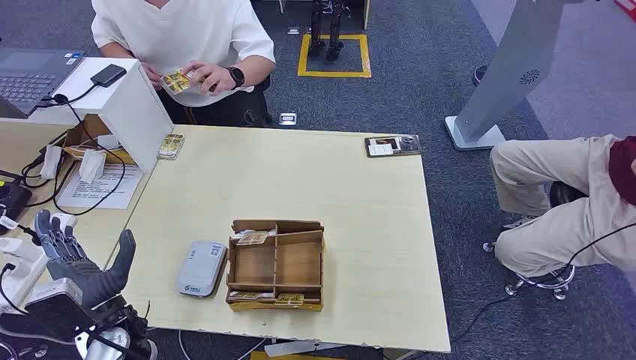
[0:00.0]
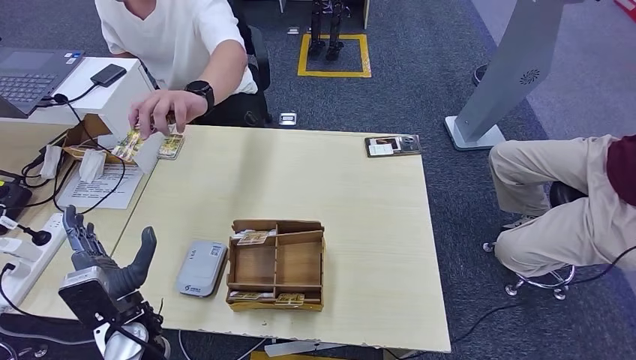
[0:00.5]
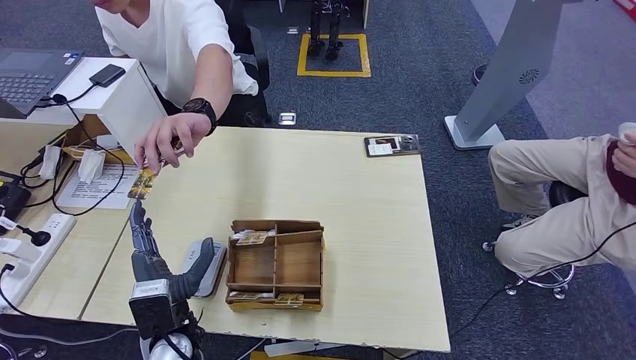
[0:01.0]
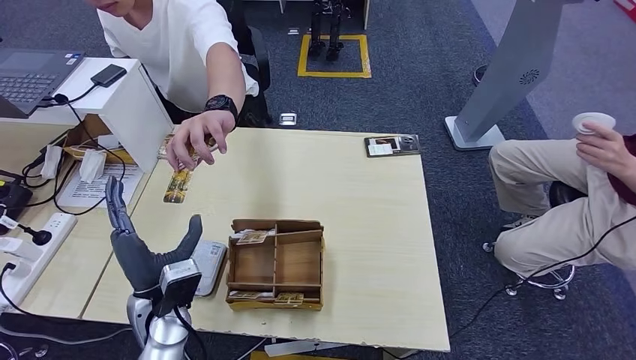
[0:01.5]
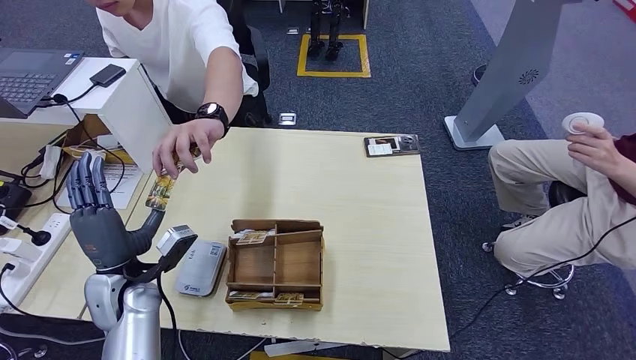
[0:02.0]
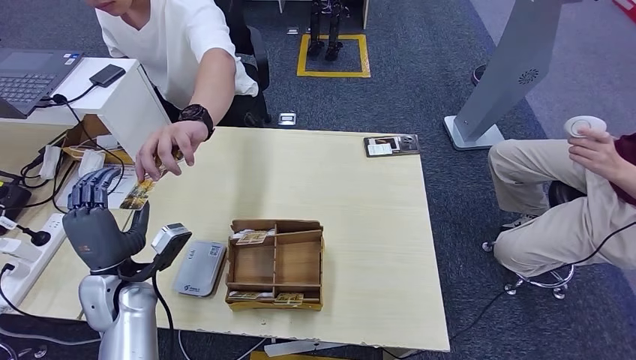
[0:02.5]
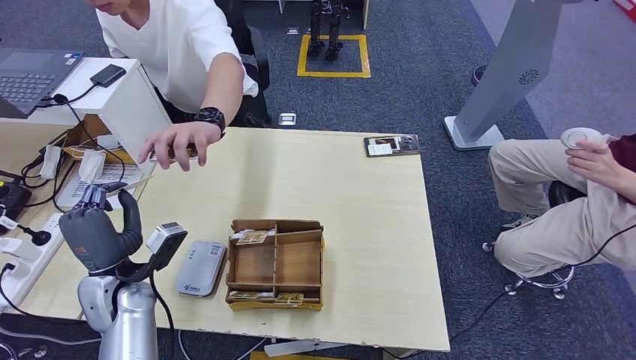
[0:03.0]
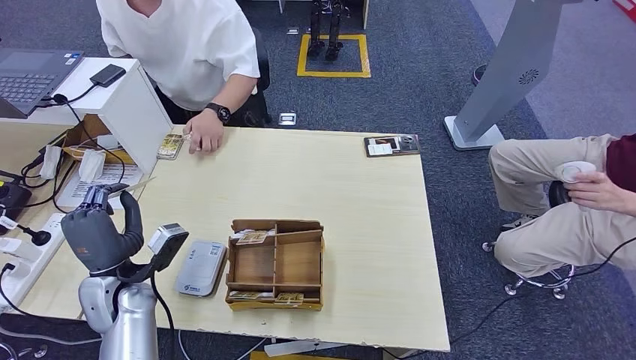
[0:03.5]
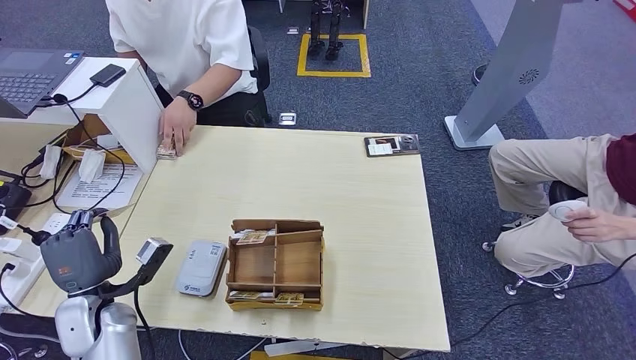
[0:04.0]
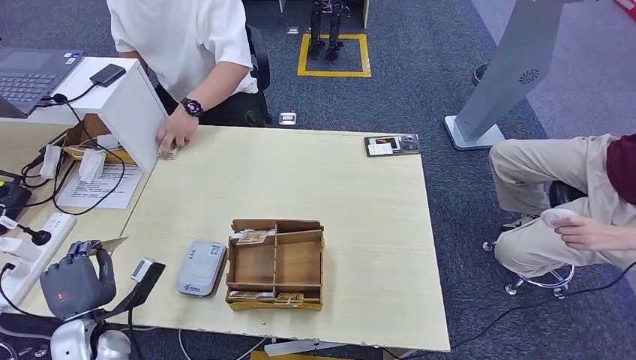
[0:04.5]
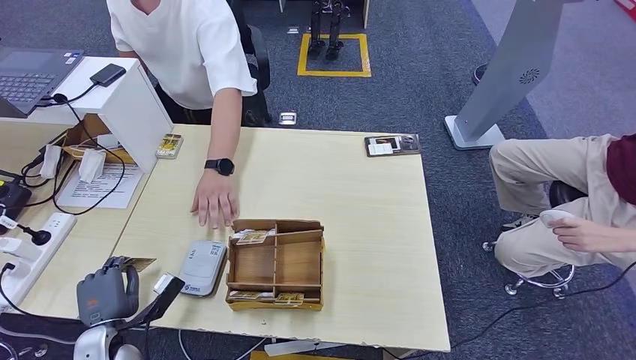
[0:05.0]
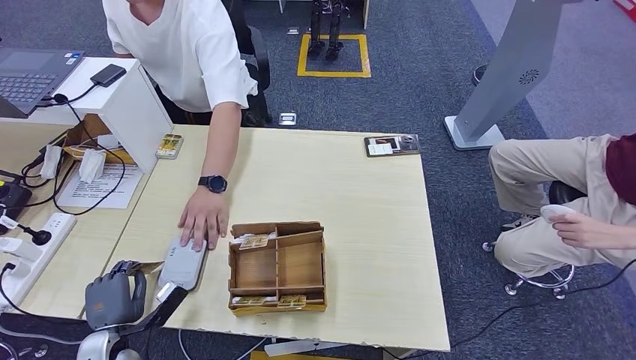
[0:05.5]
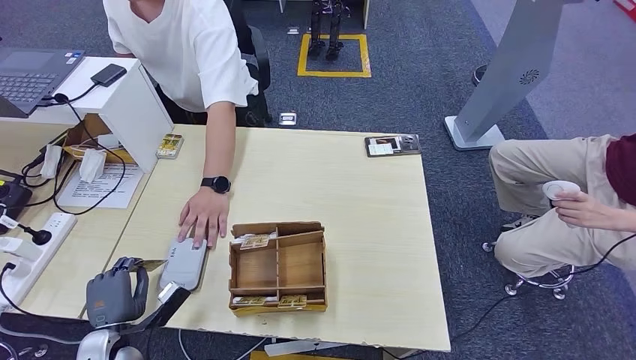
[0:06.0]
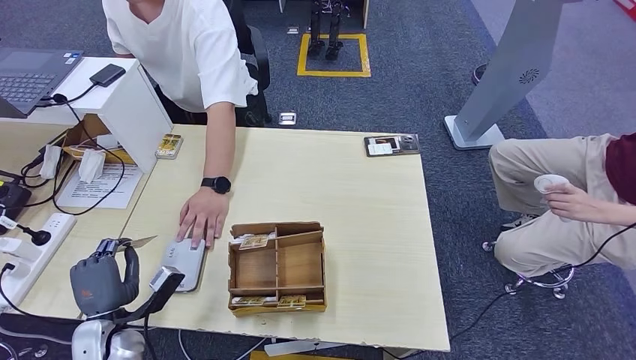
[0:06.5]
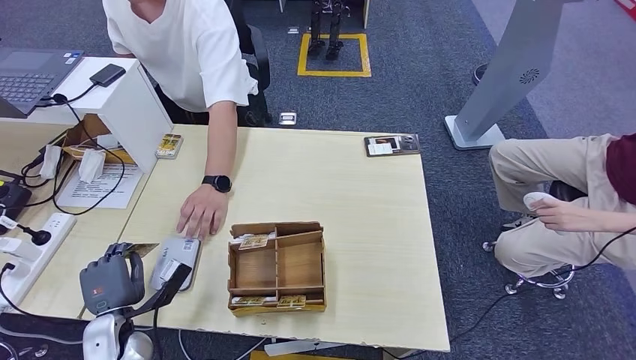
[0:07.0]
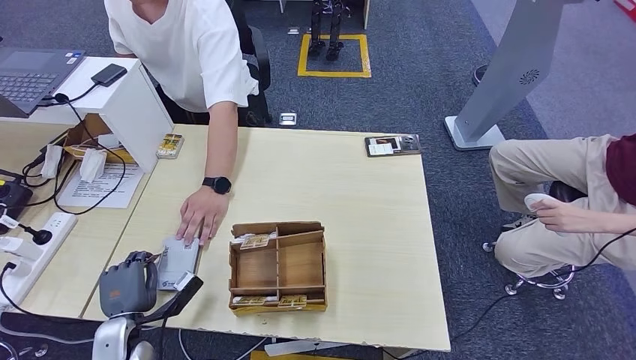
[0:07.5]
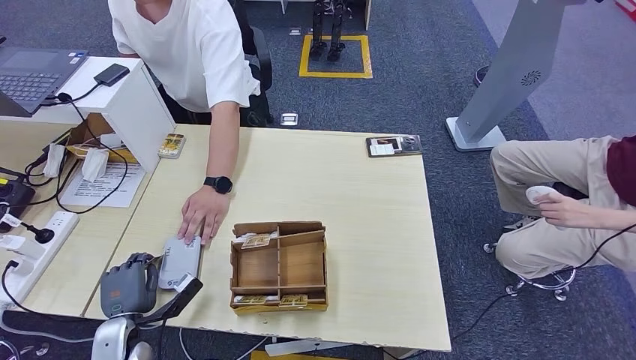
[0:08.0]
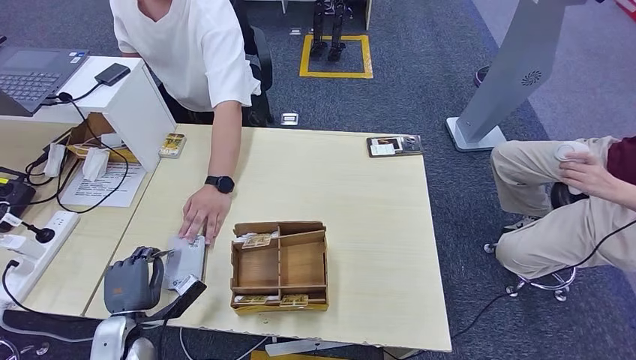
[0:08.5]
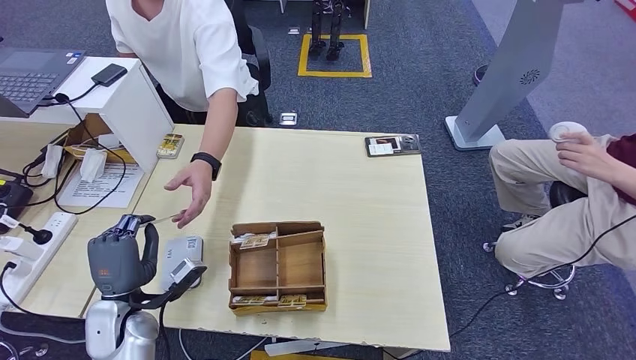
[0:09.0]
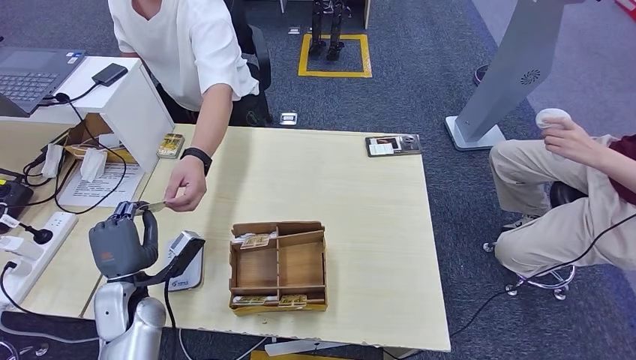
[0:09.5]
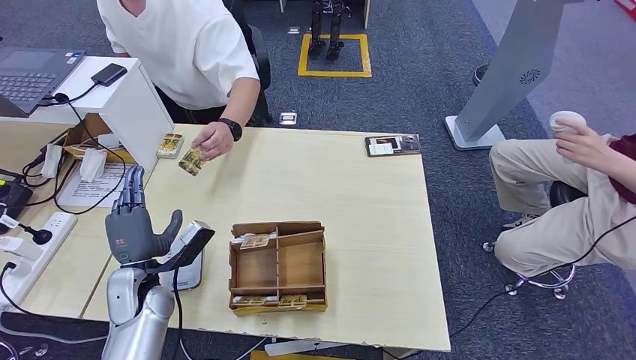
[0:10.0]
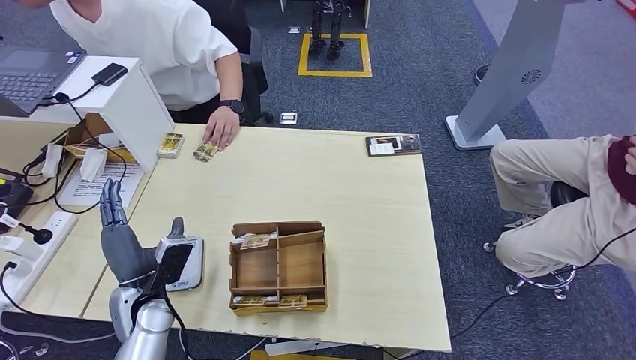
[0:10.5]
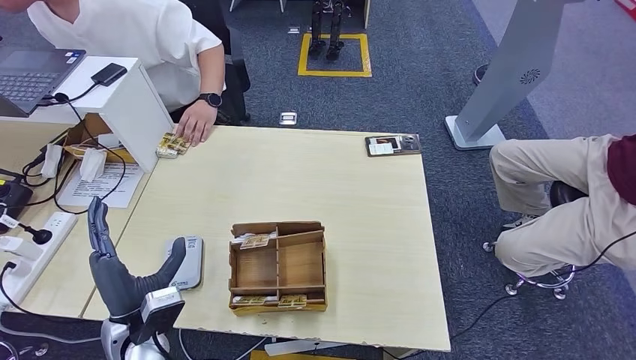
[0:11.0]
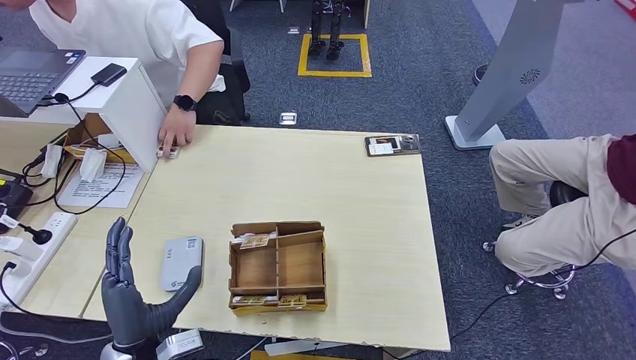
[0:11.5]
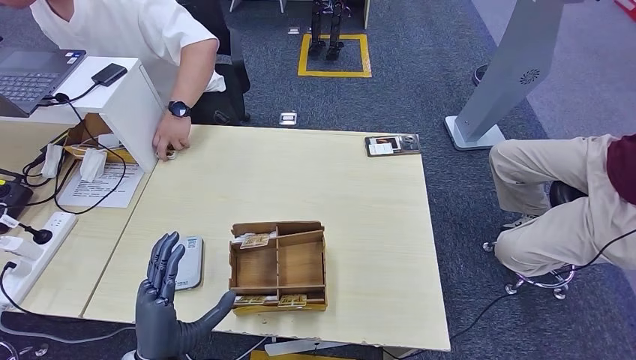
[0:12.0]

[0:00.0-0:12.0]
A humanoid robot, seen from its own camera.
Step, 0:00.0 to 0:03.0: Take the ID card from the person's hand.
Step, 0:03.5 to 0:07.5: Place the ID card on the card reader.
Step, 0:08.0 to 0:10.0: Hand the ID card to the person.
0:02.0 to 0:04.0: The left hand is displaced to the left by roughly 5 cm.
0:04.0 to 0:06.0: The left hand heads downward, covering about 10 cm.
0:06.0 to 0:08.0: The hands stay close to where they were, moving slightly.
0:08.0 to 0:10.0: The left hand is displaced upward, forward and to the right by about 15 cm.
0:10.0 to 0:12.0: The left hand heads backward and to the right, covering some 15 cm.

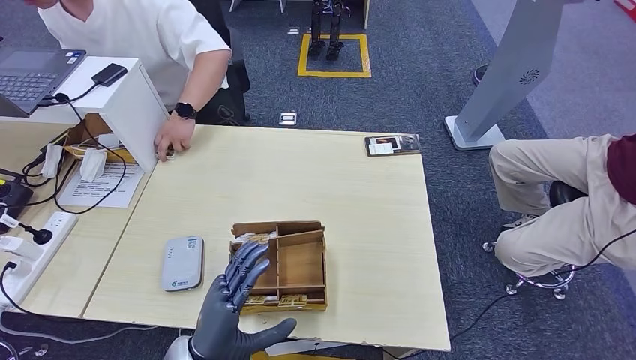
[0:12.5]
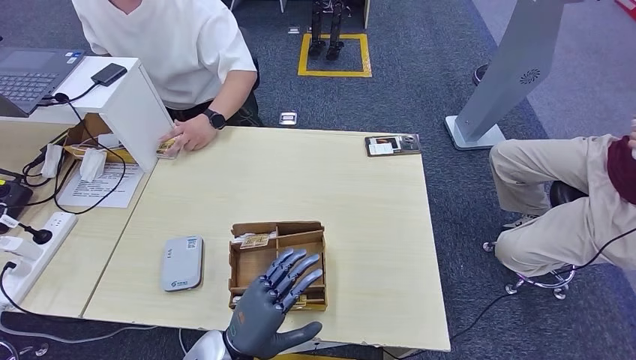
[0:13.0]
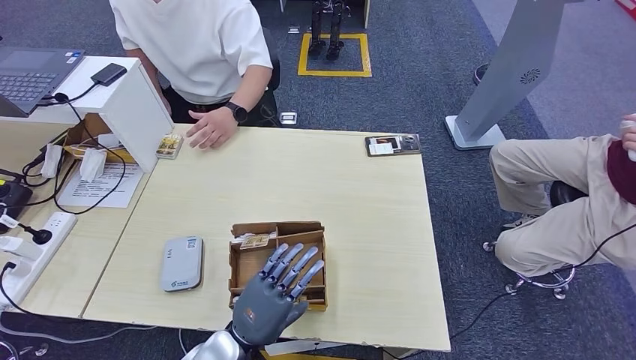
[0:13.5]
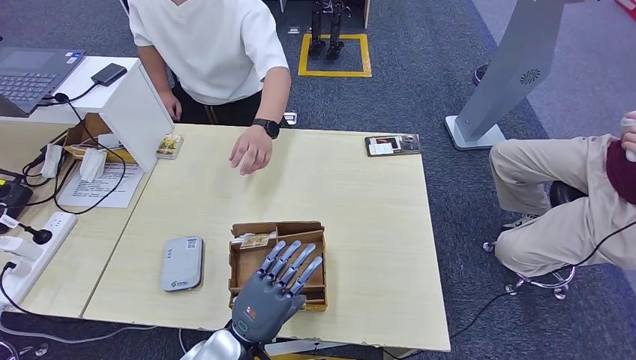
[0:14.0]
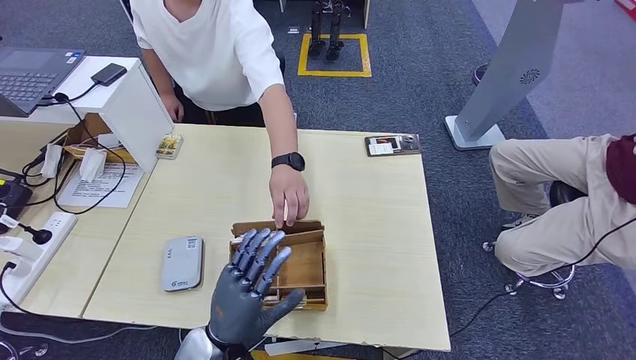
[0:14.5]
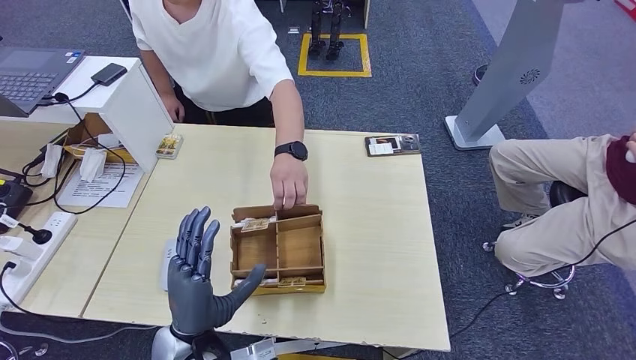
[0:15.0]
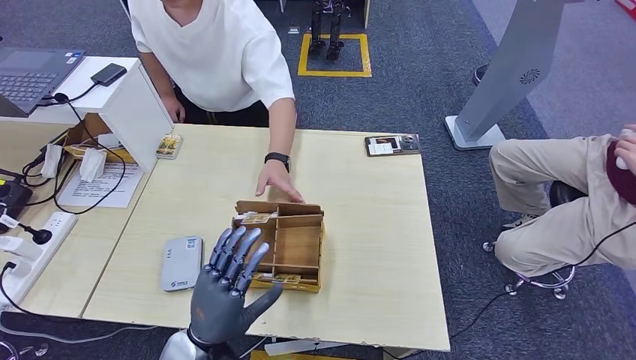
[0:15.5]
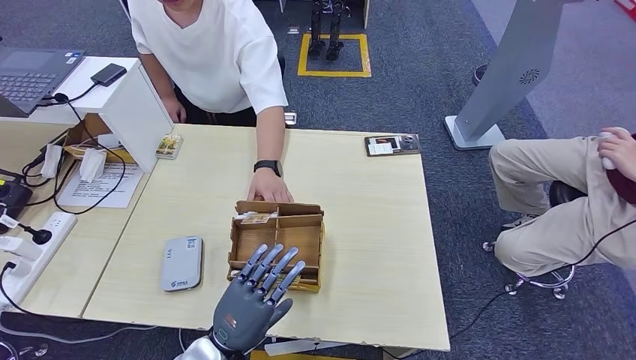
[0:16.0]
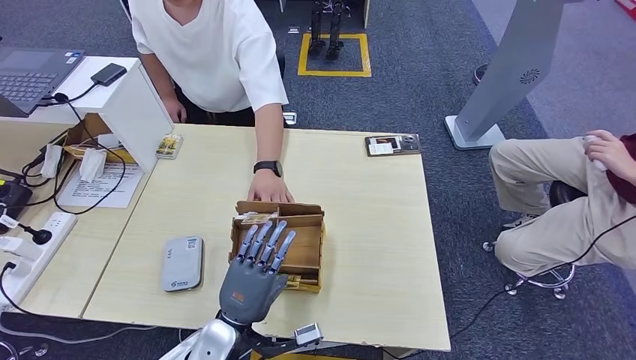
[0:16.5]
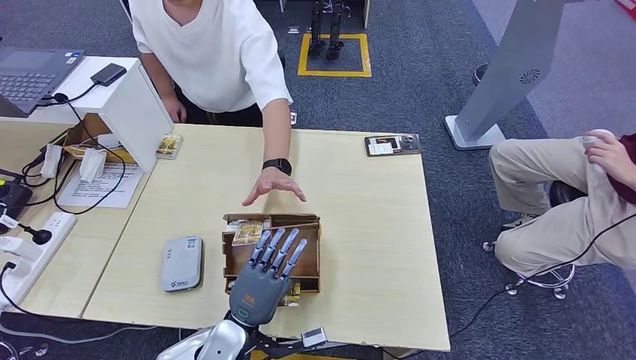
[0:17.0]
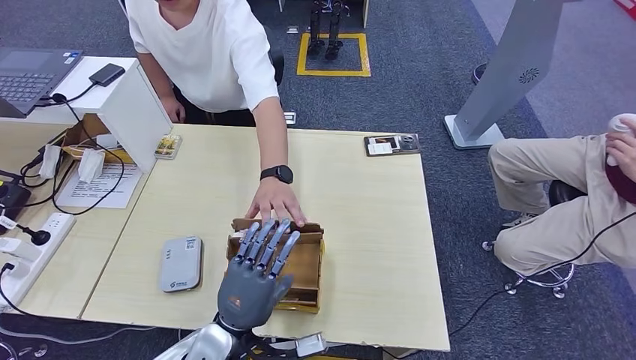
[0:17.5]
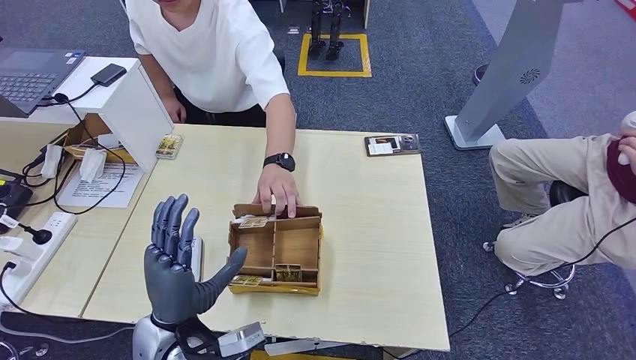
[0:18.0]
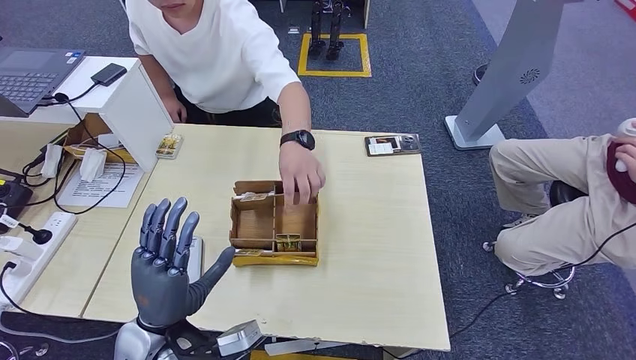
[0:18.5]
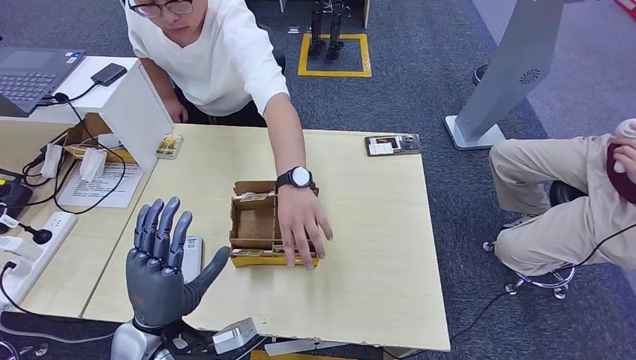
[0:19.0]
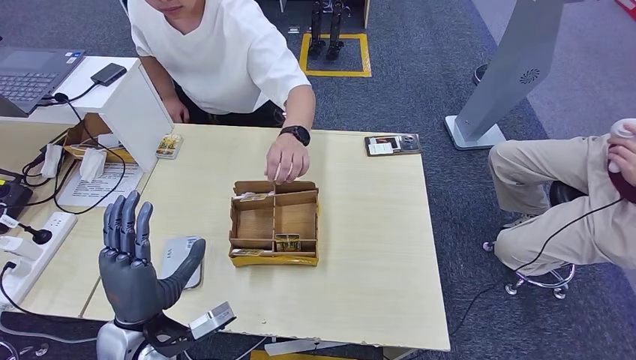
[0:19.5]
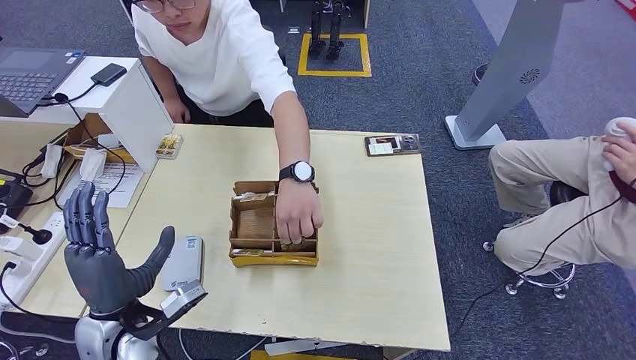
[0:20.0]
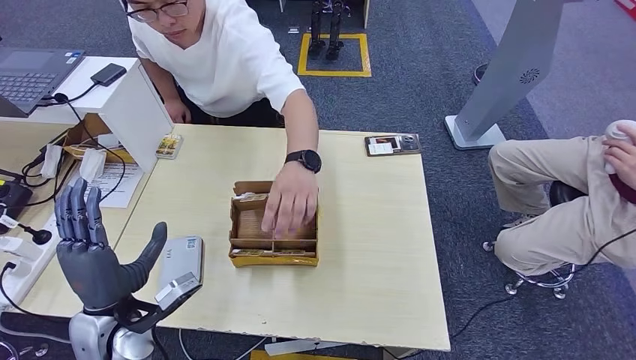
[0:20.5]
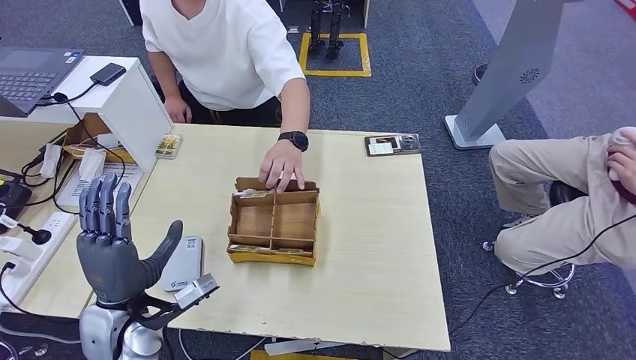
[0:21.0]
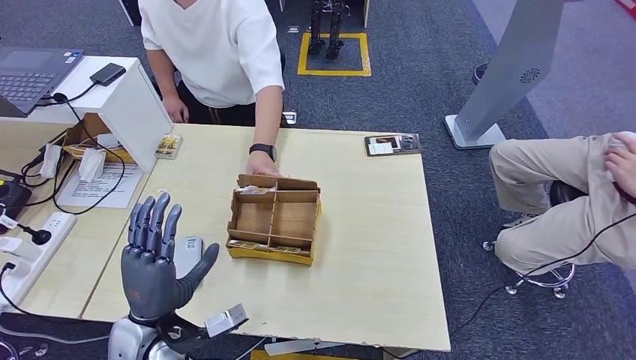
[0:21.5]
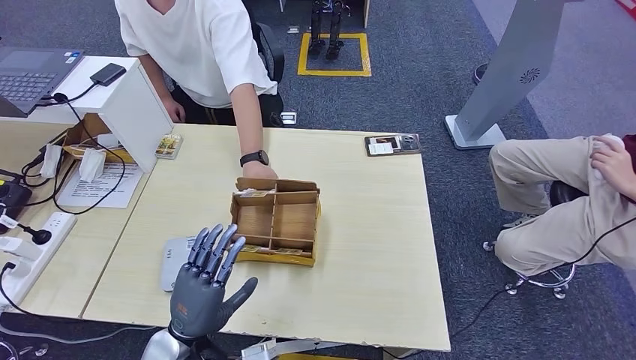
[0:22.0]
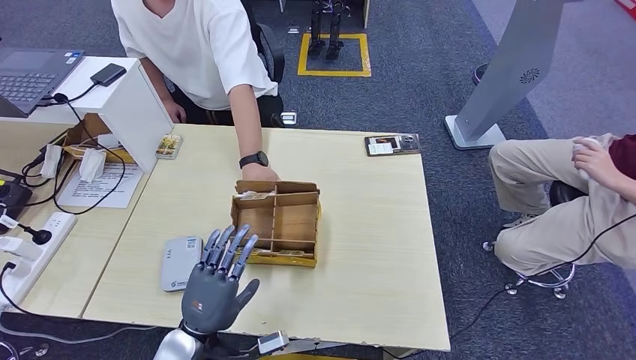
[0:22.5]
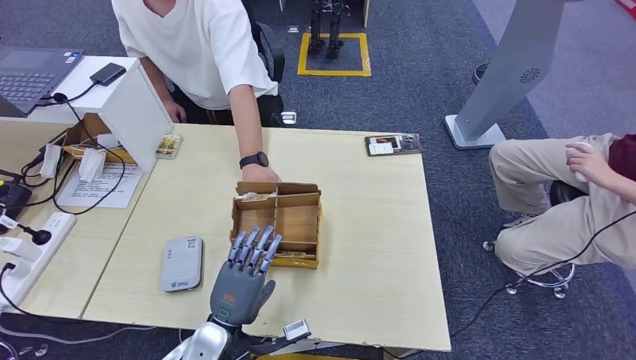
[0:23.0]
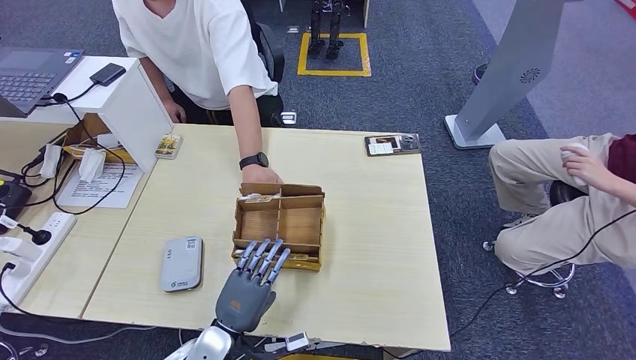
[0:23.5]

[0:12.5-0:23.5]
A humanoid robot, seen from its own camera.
0:16.0 to 0:18.0: The left hand travels upward by about 5 cm.
0:18.0 to 0:20.0: The left hand is displaced to the left by about 10 cm.
0:20.0 to 0:21.5: The hands stay close to where they were, moving slightly.
0:21.5 to 0:23.5: The left hand goes about 15 cm downward and to the right.
